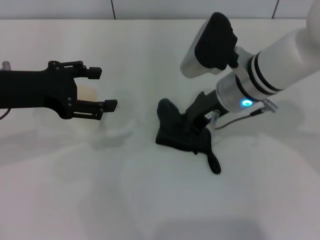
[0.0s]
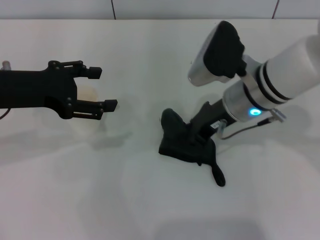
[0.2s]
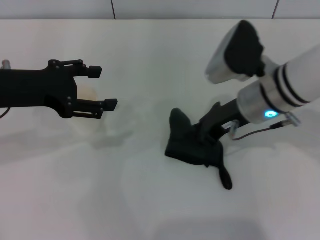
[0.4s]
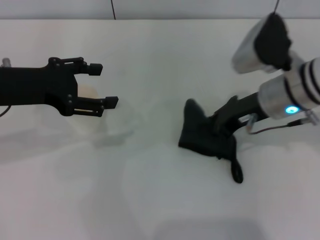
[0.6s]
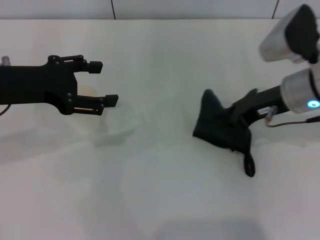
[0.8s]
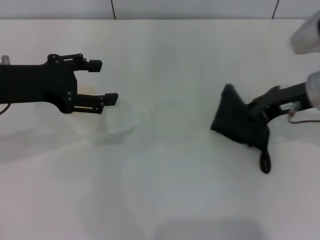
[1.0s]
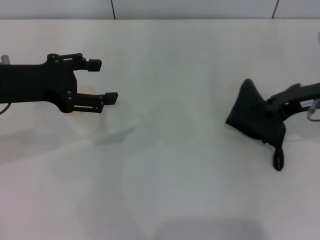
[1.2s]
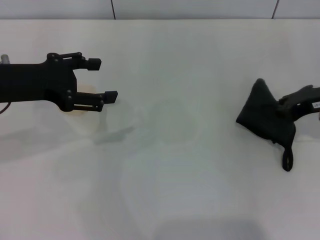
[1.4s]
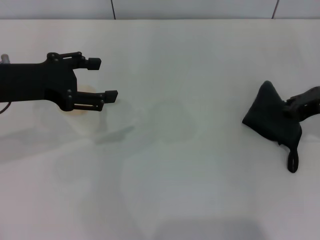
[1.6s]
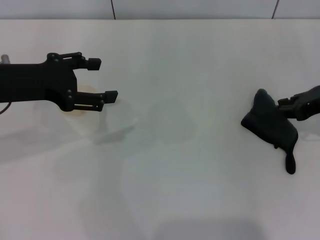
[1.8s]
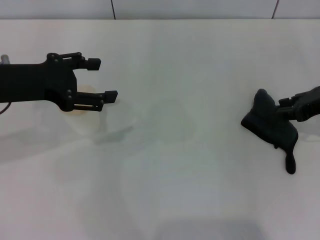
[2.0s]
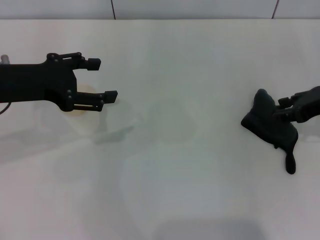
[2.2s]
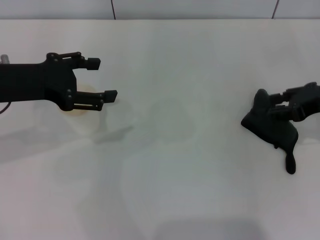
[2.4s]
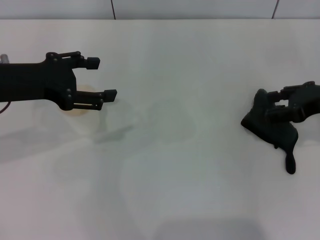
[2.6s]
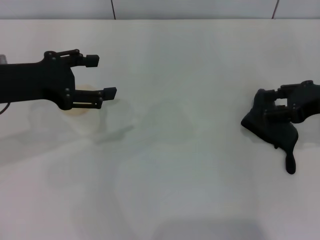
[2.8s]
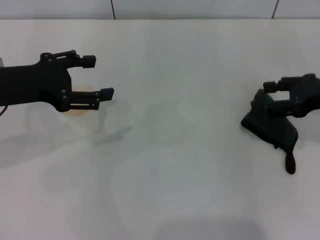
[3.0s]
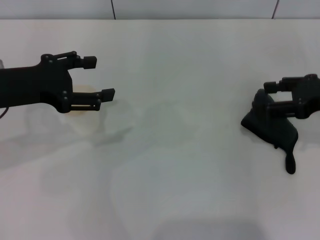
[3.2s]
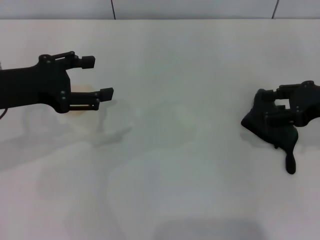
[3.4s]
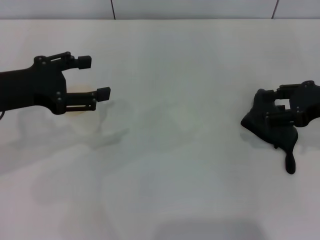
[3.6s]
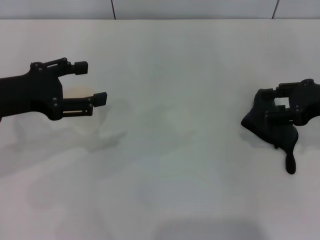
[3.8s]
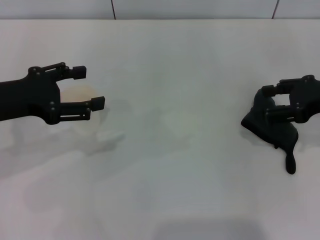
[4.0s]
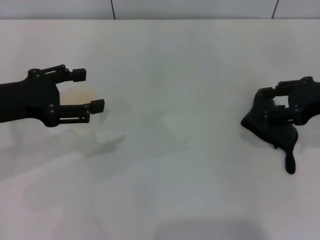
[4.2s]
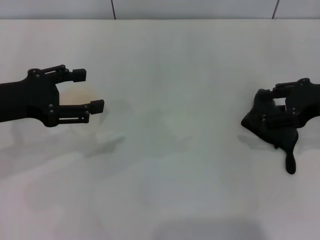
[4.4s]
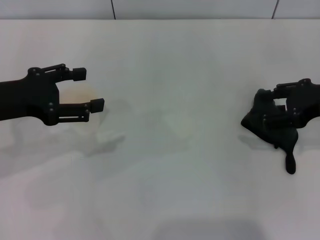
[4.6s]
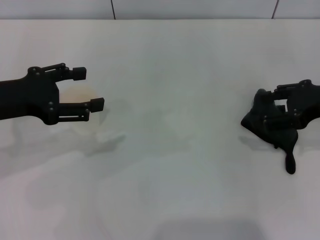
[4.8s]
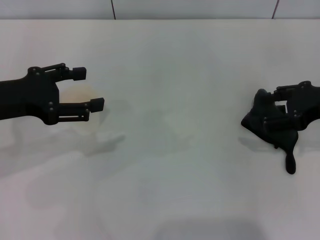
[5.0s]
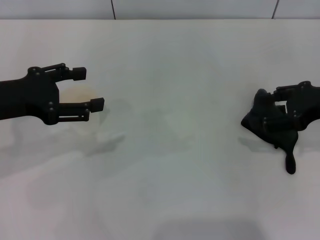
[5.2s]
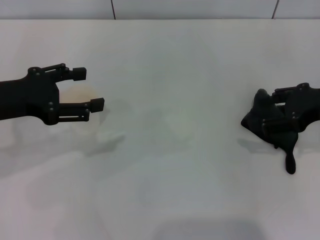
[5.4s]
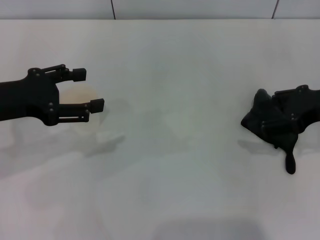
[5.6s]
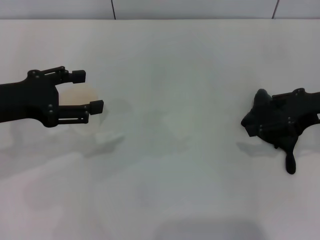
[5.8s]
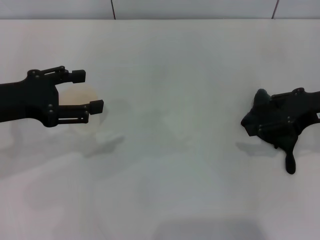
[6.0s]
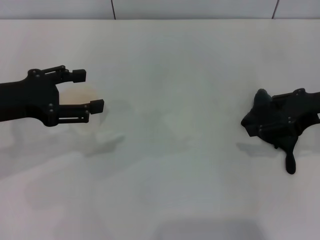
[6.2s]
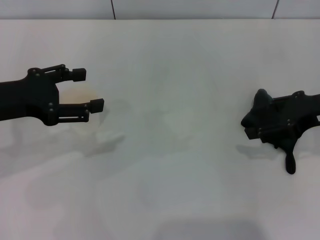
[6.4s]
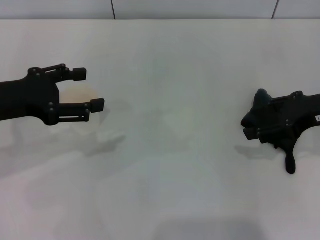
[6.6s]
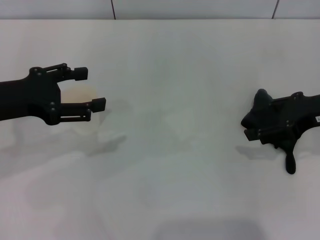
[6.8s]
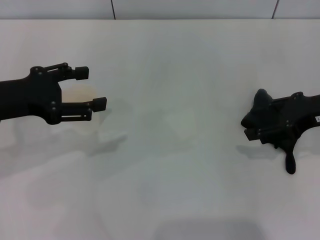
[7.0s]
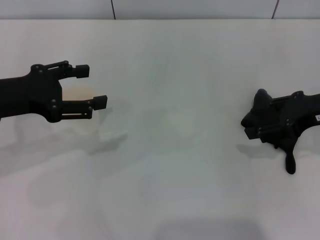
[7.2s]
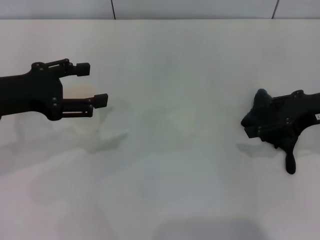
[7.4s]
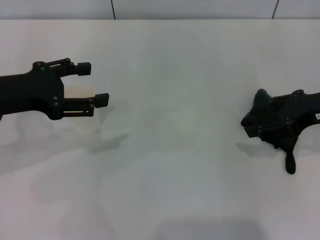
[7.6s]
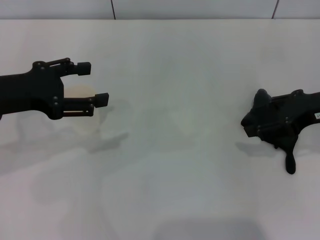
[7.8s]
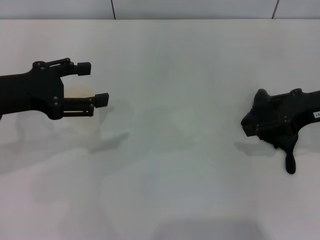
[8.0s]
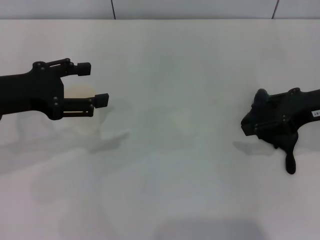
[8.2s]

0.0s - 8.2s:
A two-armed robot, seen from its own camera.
Step, 0.4s - 6.2s: Place the rag on the table with the right gripper.
0.0s - 1.6s: The right gripper is displaced to the right by some 20 cm.
1.6s - 3.2s: The right gripper opens up.
3.2s - 6.6s: The grippers move only a little.
6.6s - 8.2s: Both grippers stay about where they are.
